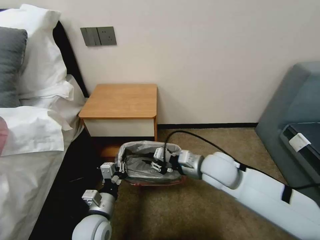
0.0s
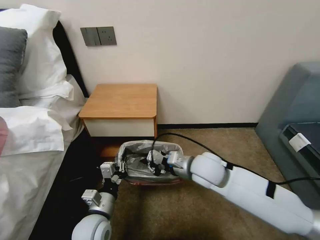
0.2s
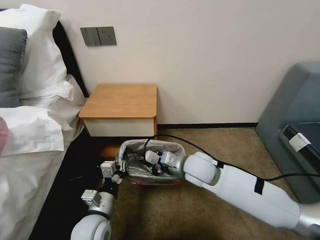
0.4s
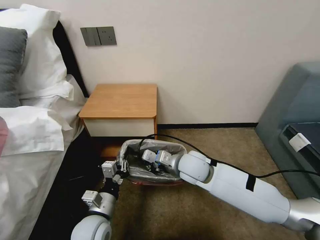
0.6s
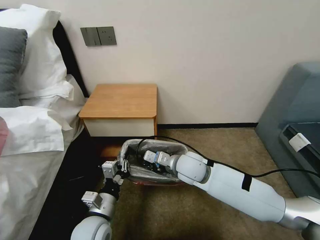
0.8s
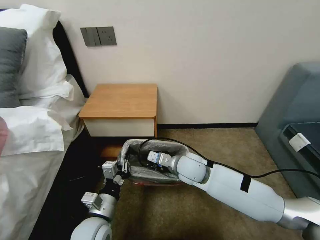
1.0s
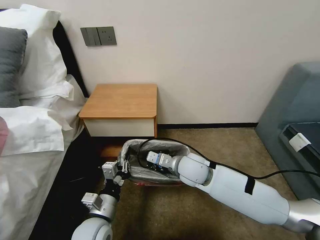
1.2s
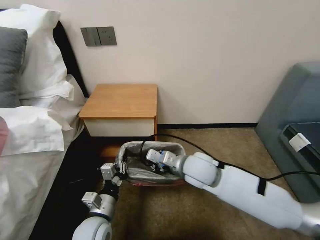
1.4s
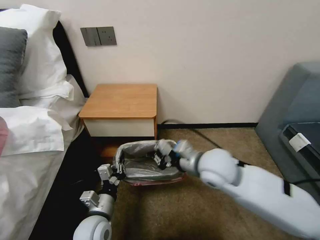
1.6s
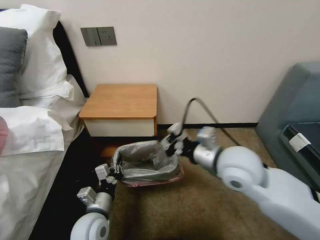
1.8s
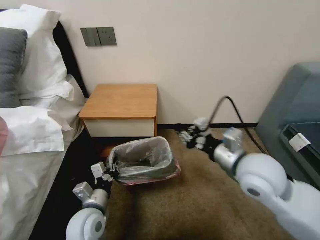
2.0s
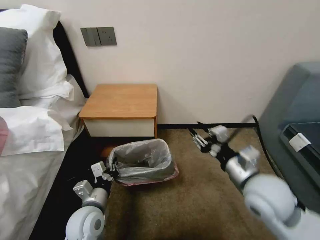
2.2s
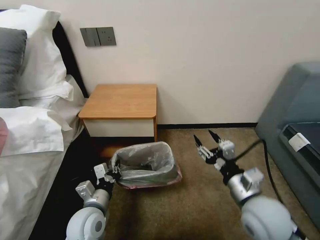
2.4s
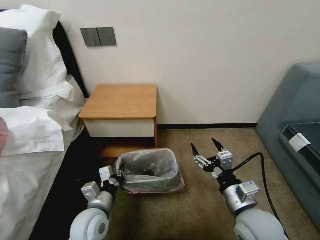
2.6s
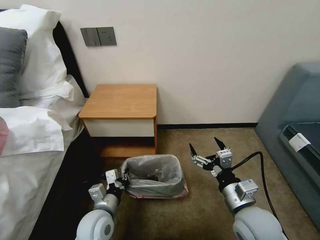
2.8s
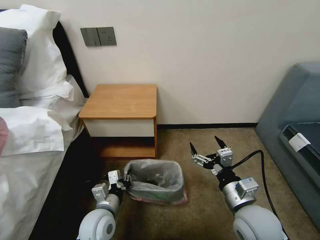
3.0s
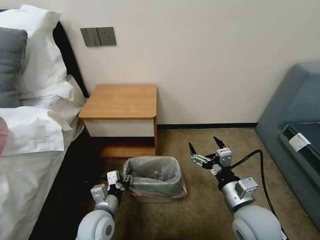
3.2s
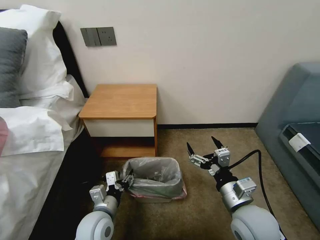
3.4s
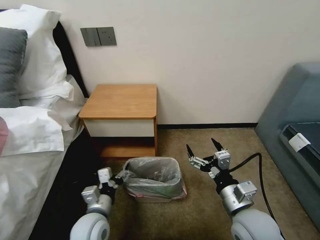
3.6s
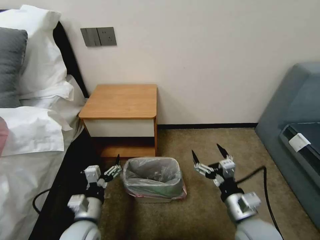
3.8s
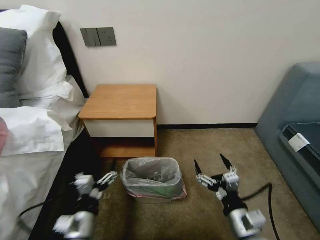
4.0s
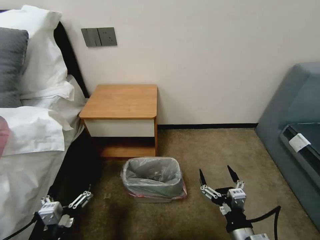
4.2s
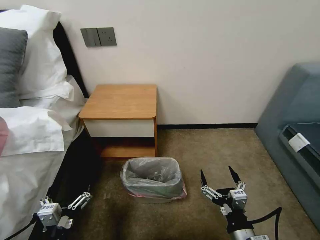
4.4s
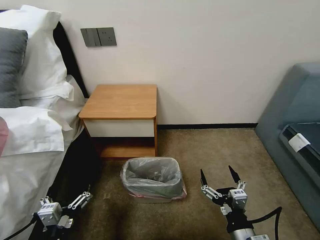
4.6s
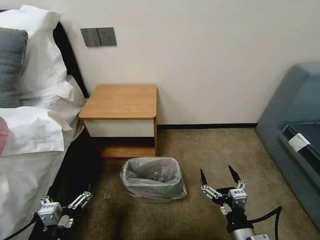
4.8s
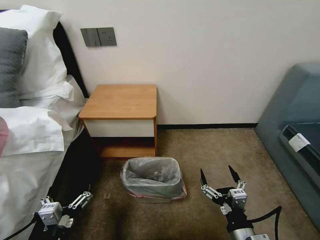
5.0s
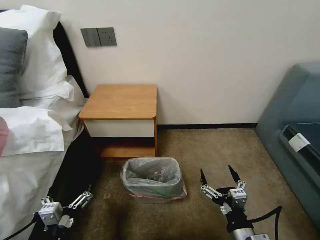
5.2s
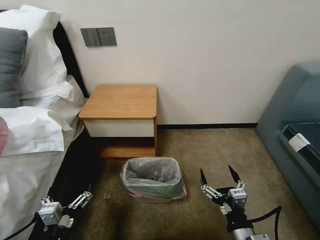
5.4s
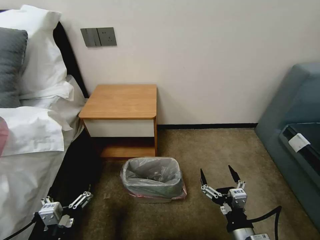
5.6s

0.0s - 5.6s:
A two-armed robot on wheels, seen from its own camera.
Task of the whole recording: Pick up the garbage bag from the table and place it over the trash can.
1.4s - 2.8s: The right gripper travels backward and to the right by about 20 cm, and opens.
2.8s - 4.2s: The left gripper heads backward and to the left, covering roughly 15 cm, and opens; the right gripper moves backward and downward, roughly 10 cm.
4.2s - 5.6s: Both grippers stay put.

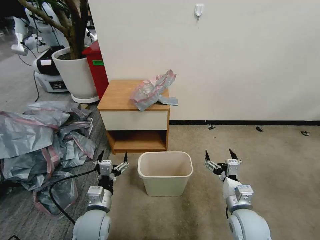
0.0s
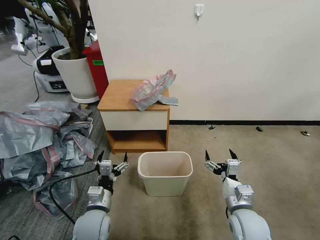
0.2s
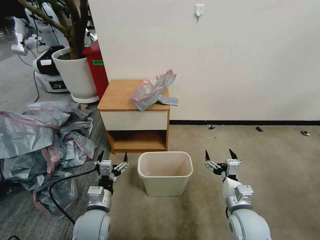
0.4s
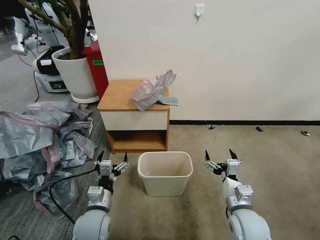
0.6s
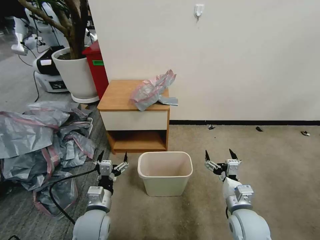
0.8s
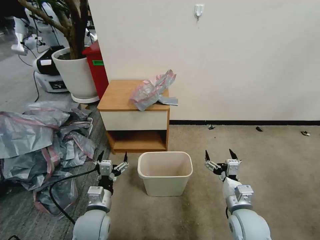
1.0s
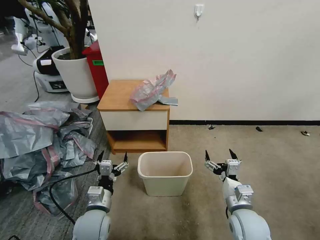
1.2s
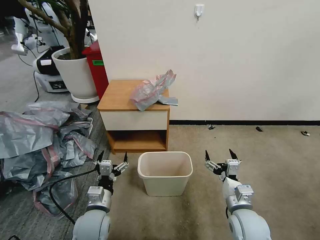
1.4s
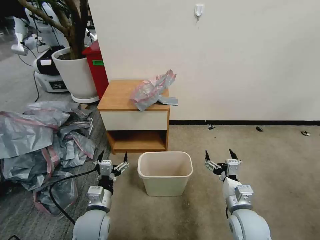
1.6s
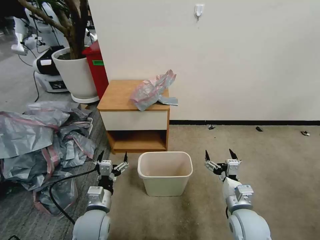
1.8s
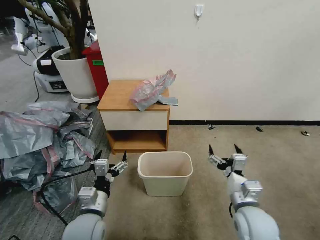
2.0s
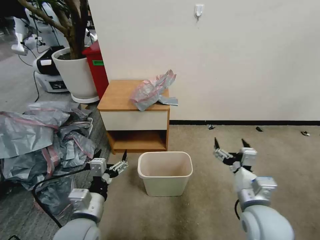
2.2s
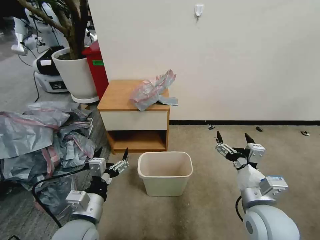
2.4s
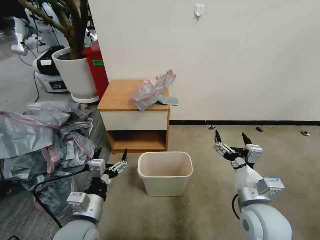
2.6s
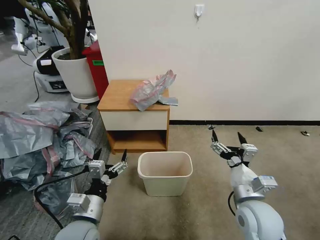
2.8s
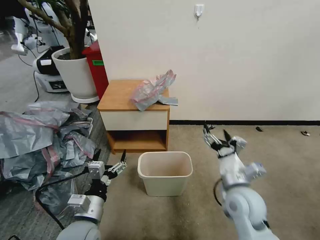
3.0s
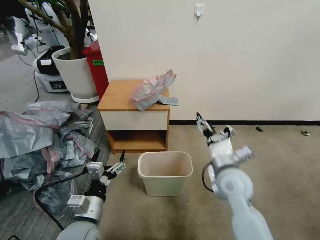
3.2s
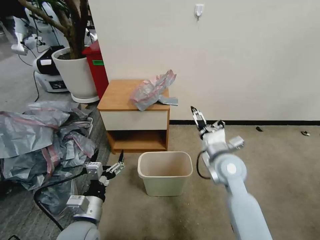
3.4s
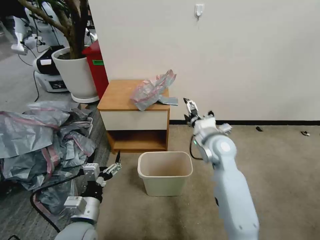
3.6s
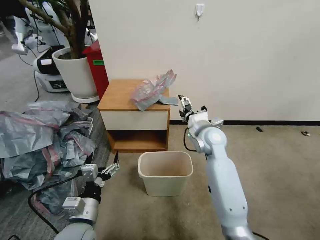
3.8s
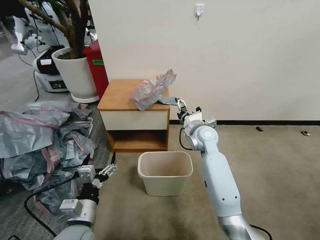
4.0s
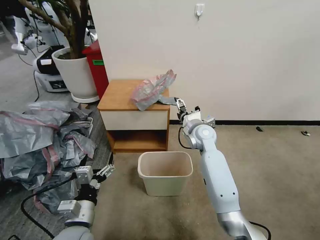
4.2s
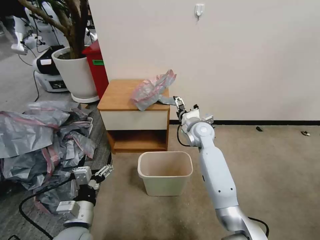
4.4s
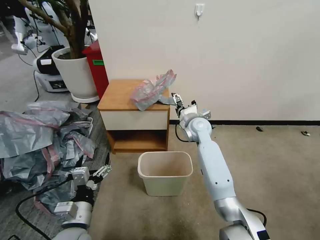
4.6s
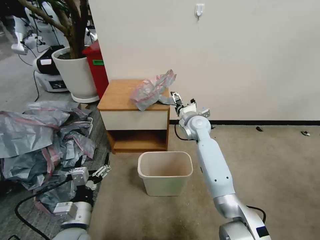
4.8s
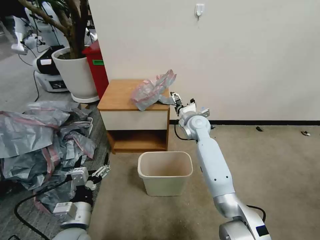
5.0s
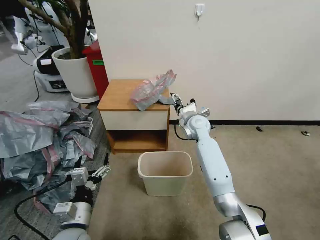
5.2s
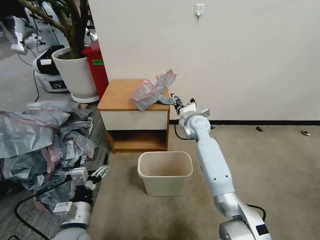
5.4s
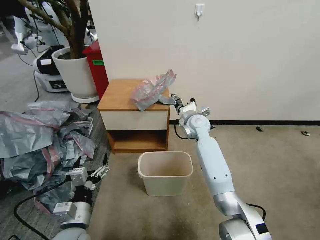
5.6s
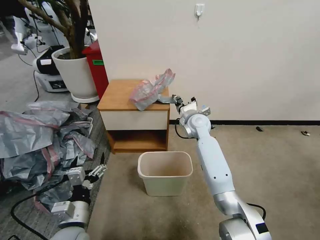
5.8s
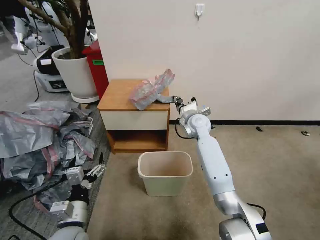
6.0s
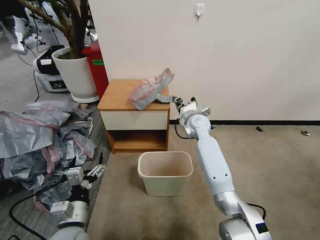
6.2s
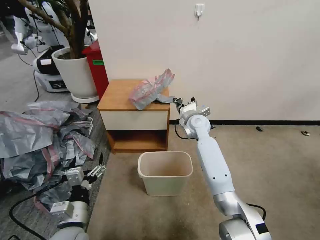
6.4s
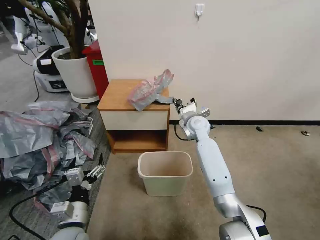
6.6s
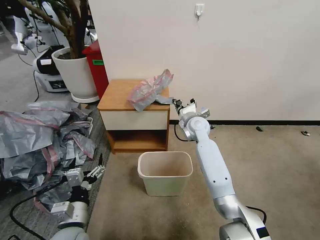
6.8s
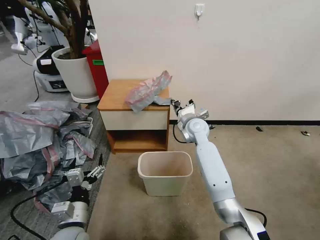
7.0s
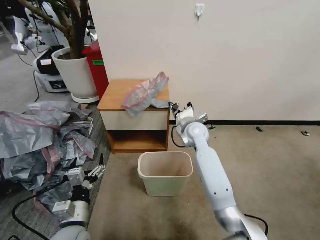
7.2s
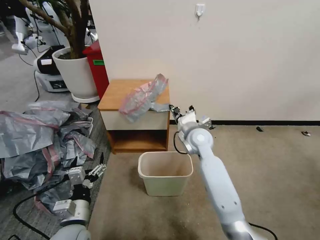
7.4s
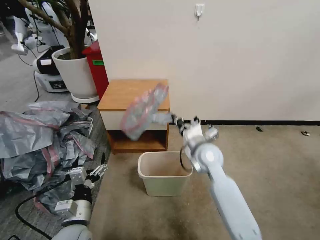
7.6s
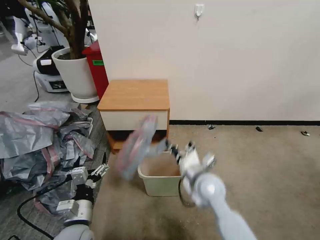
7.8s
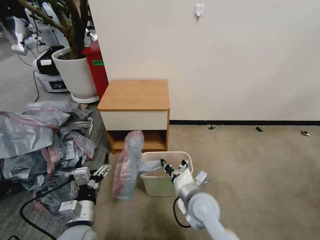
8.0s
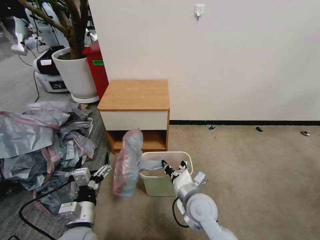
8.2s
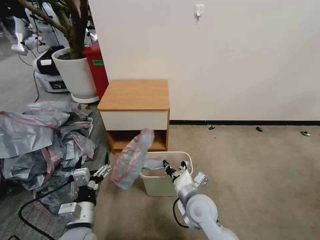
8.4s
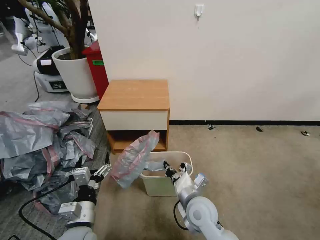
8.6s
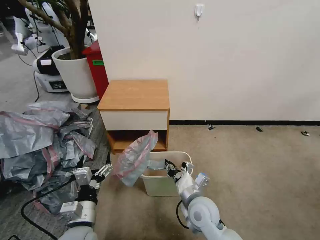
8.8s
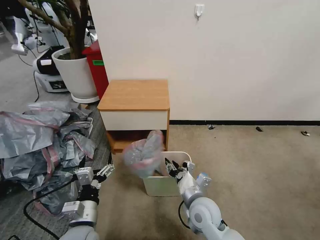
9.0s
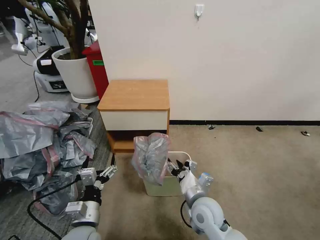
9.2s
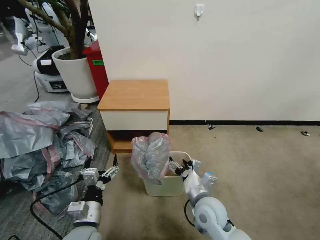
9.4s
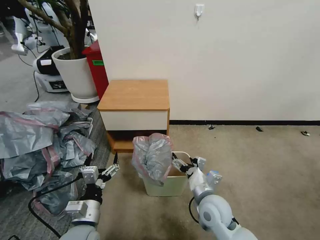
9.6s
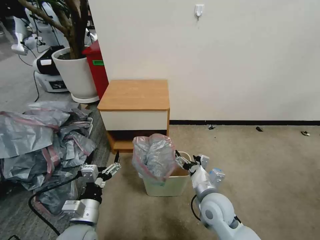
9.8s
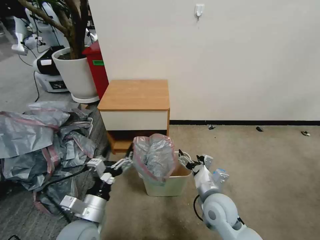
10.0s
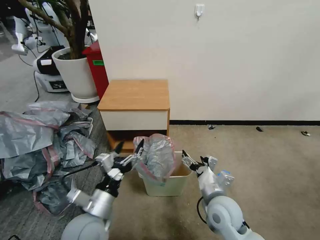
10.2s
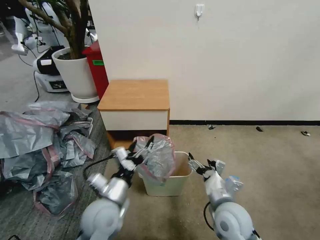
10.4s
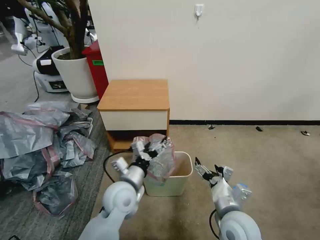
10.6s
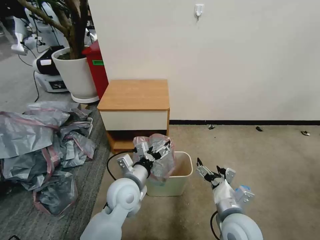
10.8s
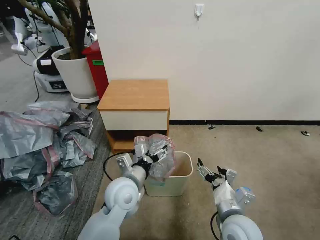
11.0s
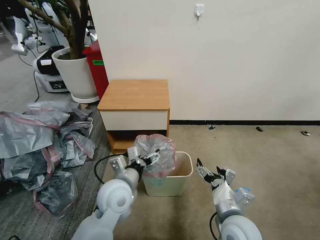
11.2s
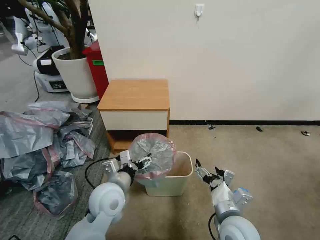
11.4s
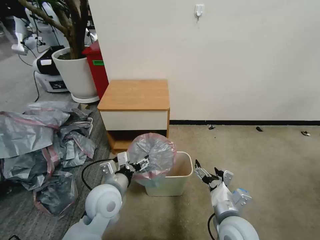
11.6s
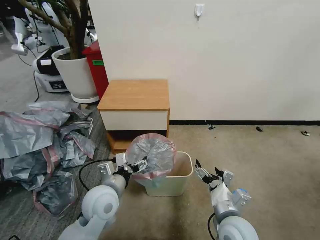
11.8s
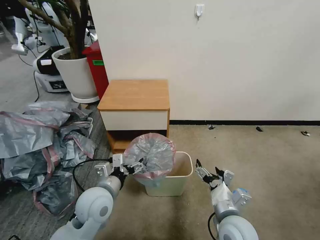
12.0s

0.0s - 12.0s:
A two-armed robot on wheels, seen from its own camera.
Task of the whole recording: Pick up the garbage bag from the table and place it over the trash can.
1.6s - 3.0s: The grippers both shift upward by about 5 cm.
3.0s - 4.4s: The right gripper goes roughly 25 cm forward.
4.4s - 6.0s: The right gripper closes up.
6.0s - 7.6s: The right gripper goes roughly 15 cm backward.
7.6s - 9.0s: The right gripper heads backward and downward, covering approximately 15 cm, and opens up.
9.0s - 10.4s: The right gripper is displaced to the right by some 5 cm, and opens up; the left gripper shifts some 10 cm forward and to the right.

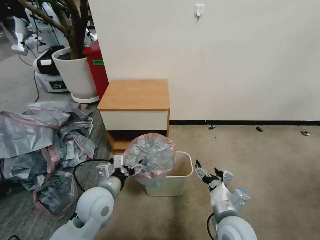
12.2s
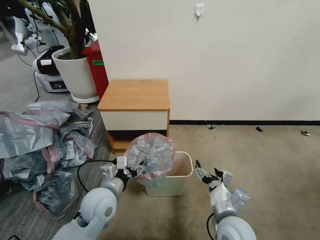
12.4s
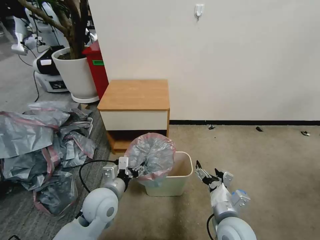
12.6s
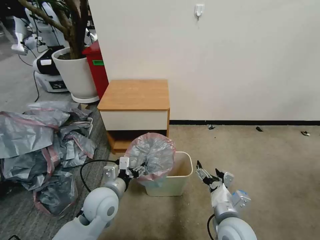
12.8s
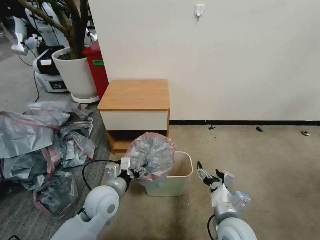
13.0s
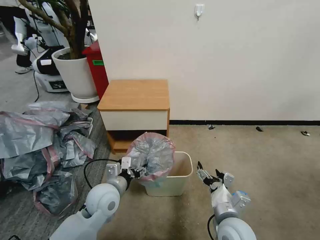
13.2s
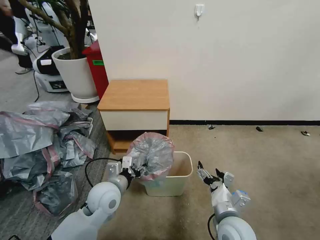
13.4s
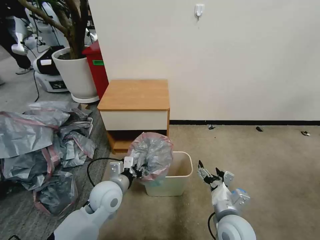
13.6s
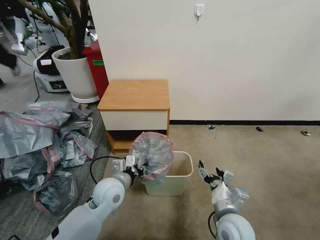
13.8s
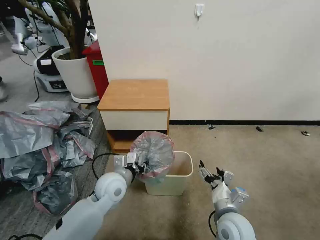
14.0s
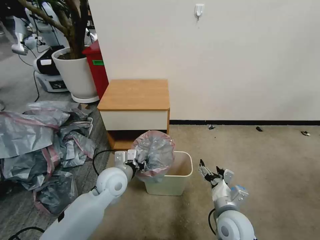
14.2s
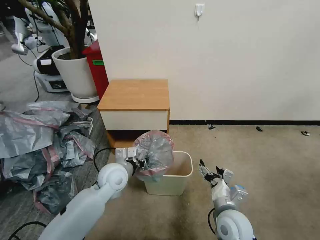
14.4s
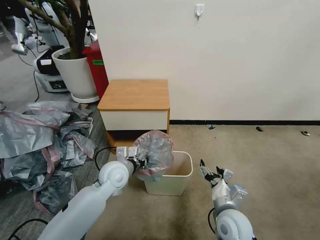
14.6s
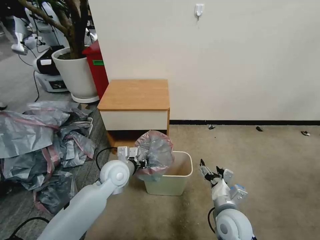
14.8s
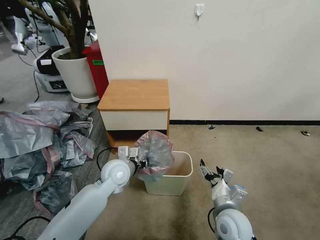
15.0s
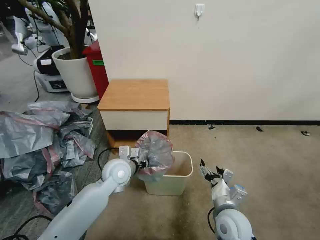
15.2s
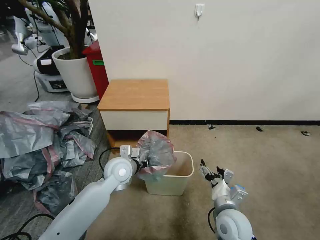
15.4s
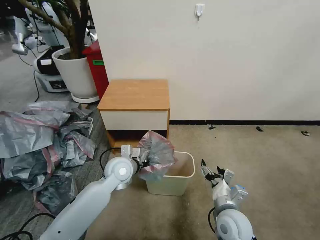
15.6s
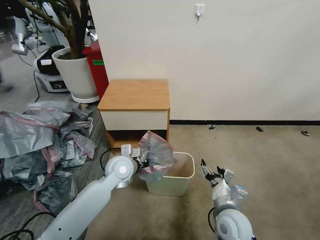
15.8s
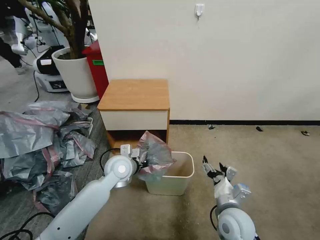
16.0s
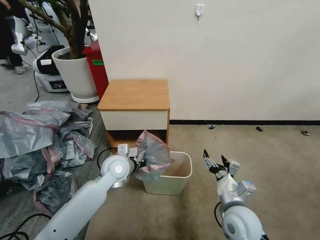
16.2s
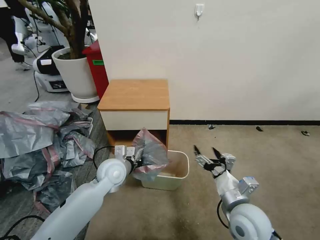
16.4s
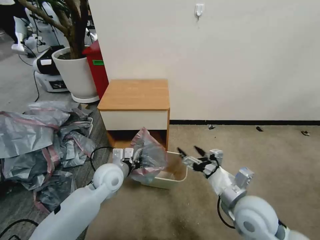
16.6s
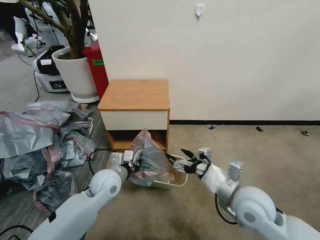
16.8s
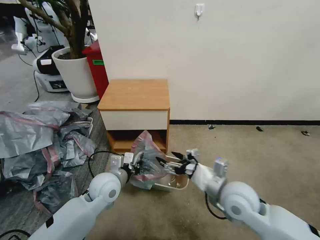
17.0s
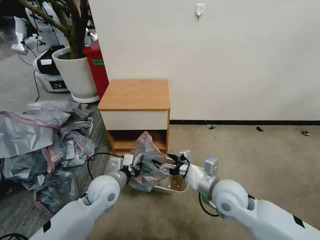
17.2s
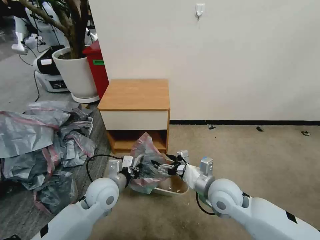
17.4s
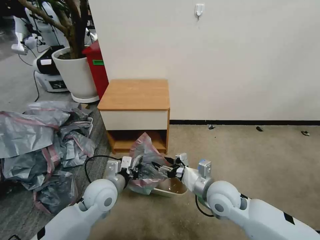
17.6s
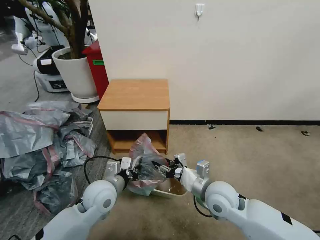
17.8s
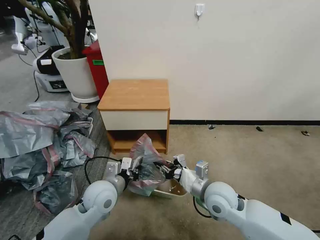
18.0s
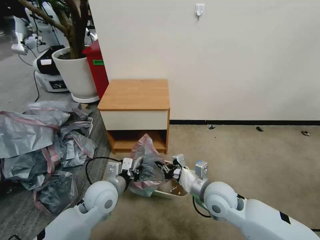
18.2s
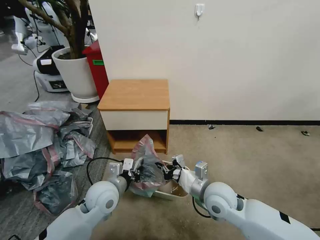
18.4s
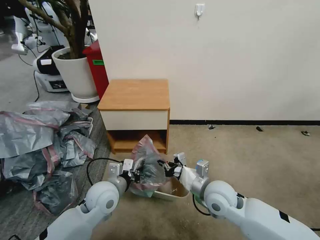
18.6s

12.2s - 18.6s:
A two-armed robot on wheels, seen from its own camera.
Task of the whole recording: Pick up the garbage bag from the table and place it over the trash can.
12.2s - 13.8s: The left gripper ends up approximately 5 cm from where it was, and closes its fingers.
13.8s - 15.4s: The left gripper goes some 5 cm forward.
15.4s - 17.0s: The left gripper travels backward by some 5 cm, while the right gripper shifts approximately 10 cm upward.
17.0s - 18.6s: The right gripper ends up approximately 5 cm from where it was, and closes up.
